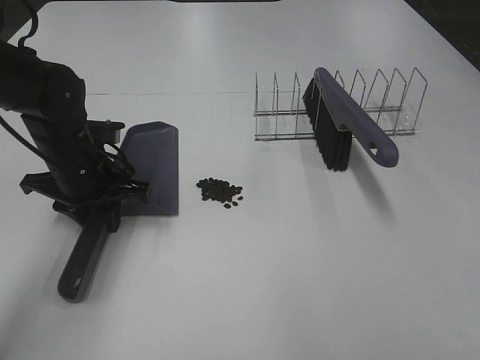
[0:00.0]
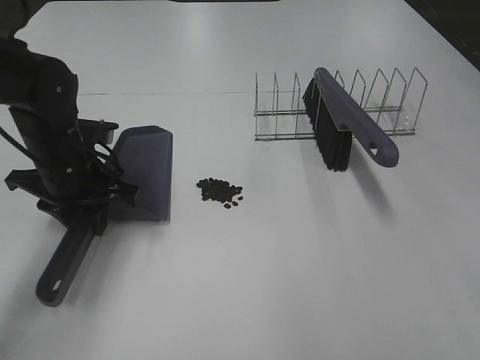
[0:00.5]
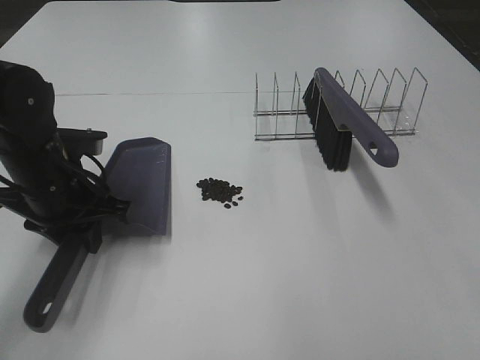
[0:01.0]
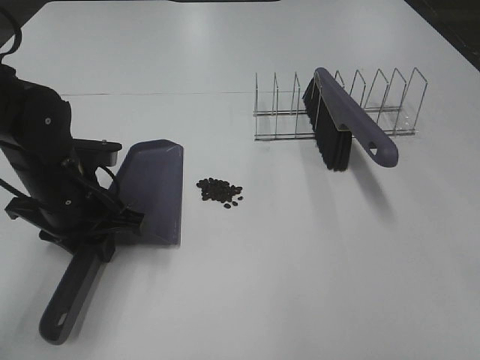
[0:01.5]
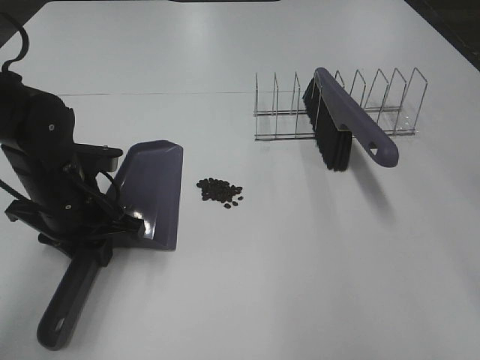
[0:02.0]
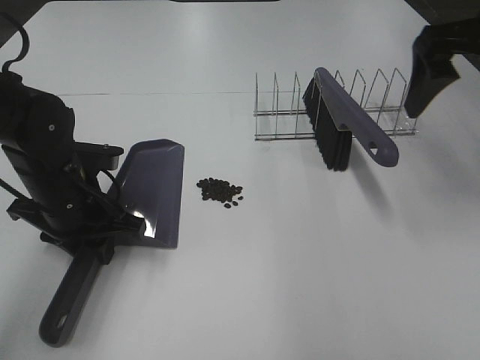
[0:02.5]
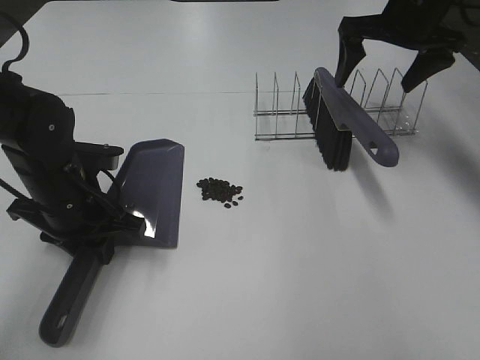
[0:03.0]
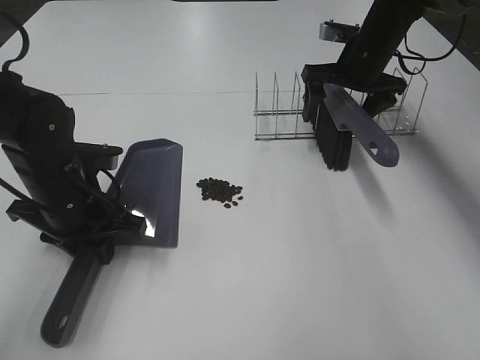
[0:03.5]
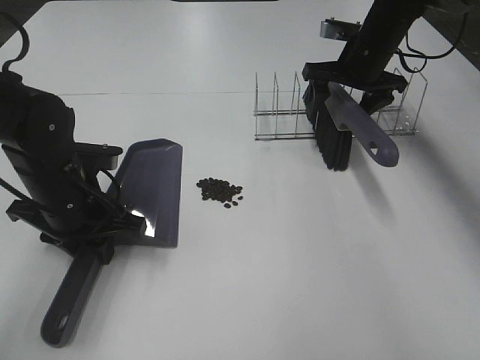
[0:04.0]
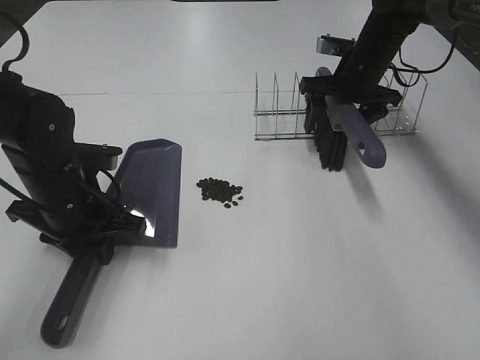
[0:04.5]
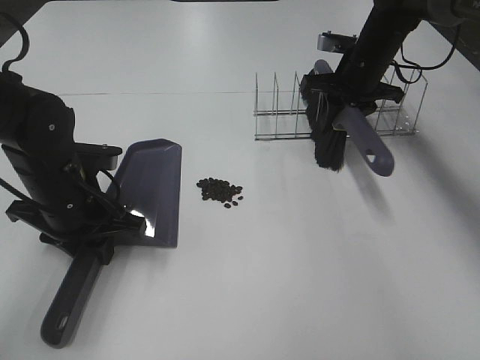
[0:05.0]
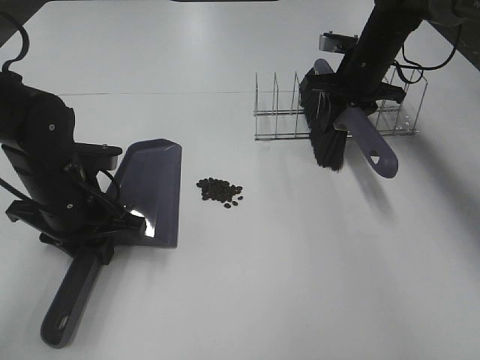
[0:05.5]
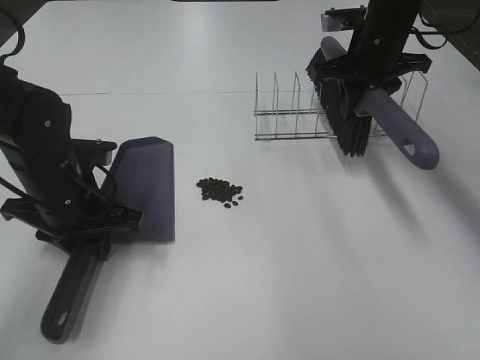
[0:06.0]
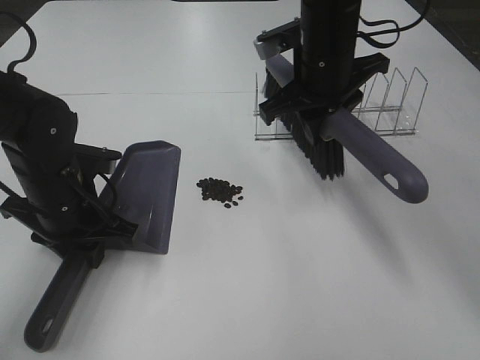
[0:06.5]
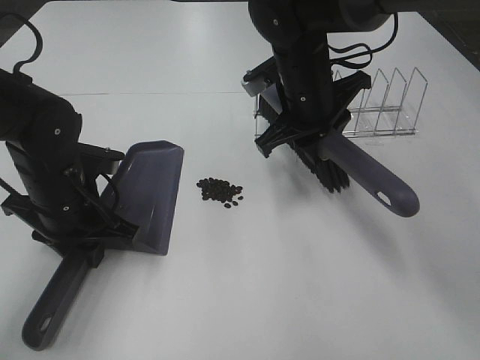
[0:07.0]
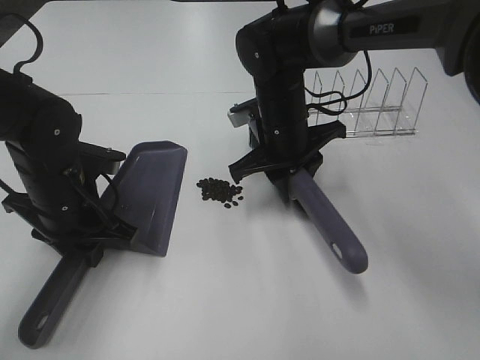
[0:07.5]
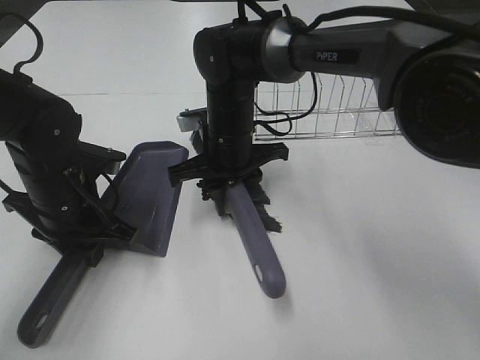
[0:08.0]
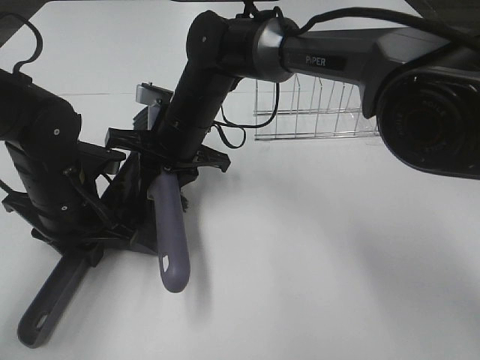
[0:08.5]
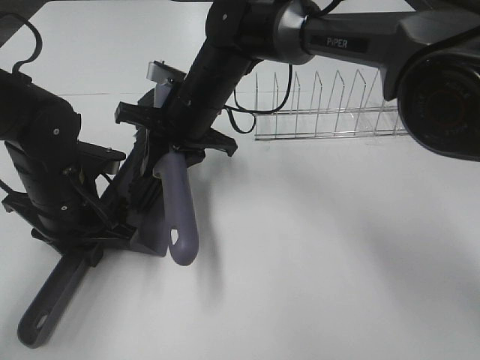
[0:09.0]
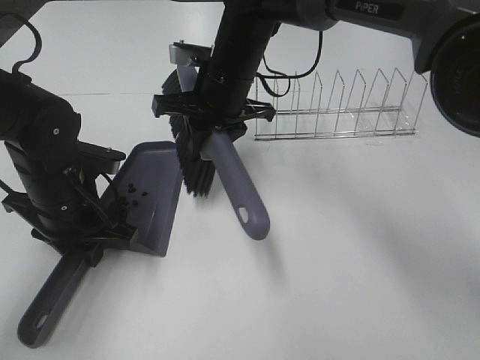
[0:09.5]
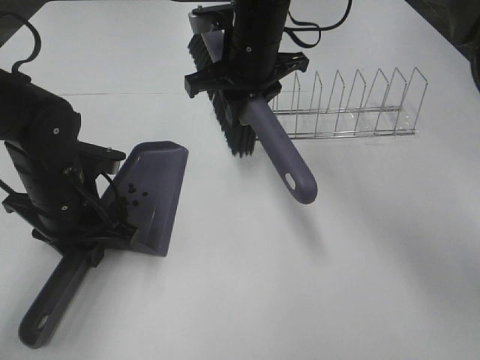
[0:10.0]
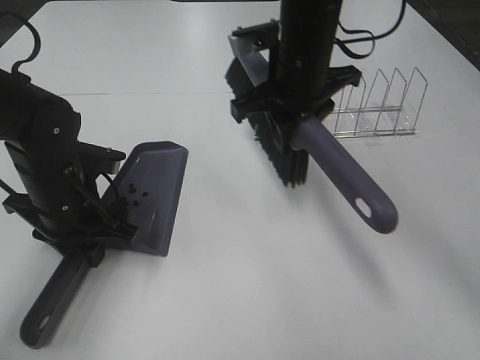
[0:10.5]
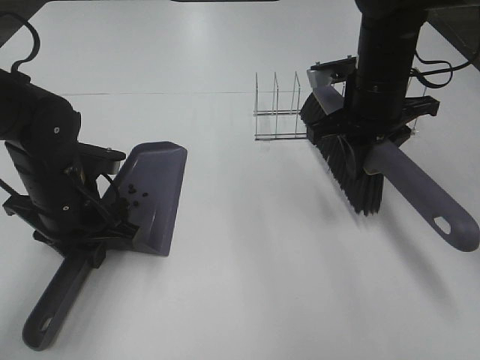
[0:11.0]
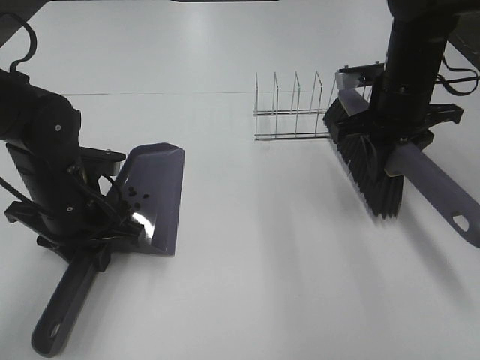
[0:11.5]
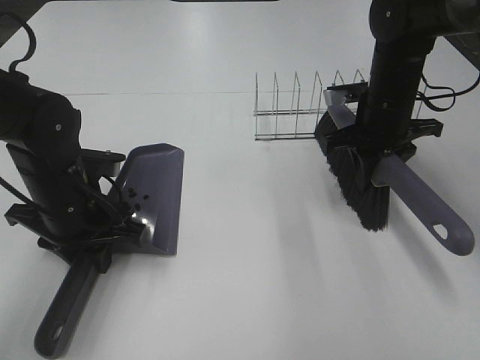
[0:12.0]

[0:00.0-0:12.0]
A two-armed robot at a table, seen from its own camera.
Task of the whole recording: Sweep Coffee Bean.
Step, 0:01.5 to 0:04.5: Right hand:grab the broom.
Step, 0:05.0 to 0:09.0: Right hand:sweep the coffee beans into the dustpan.
0:00.0 to 0:02.0: The left gripper moves backward, roughly 5 cm; the right gripper shifts approximately 15 cm forward and upward.
0:02.0 to 0:04.0: The right gripper shifts approximately 40 cm forward and downward.
0:04.0 to 0:06.0: The right gripper shifts by some 5 cm, and closes up.
0:06.0 to 0:08.0: The right gripper shifts approximately 20 cm to the left and downward.
0:08.0 to 0:10.0: The right gripper travels upward by about 10 cm.
0:10.0 to 0:12.0: The right gripper goes approximately 20 cm to the right and downward.

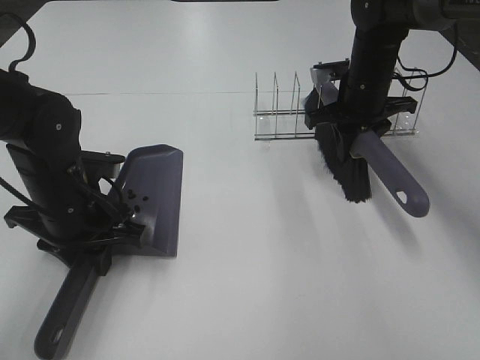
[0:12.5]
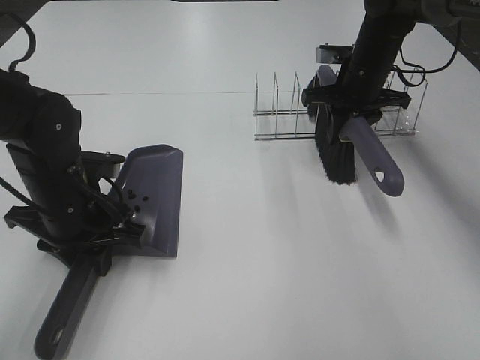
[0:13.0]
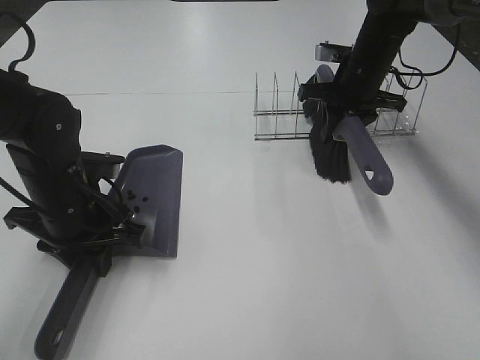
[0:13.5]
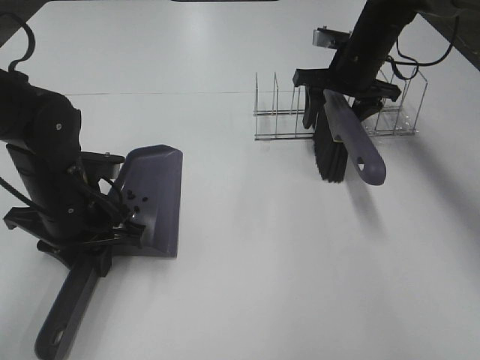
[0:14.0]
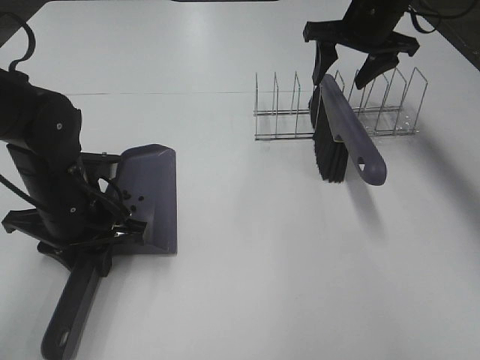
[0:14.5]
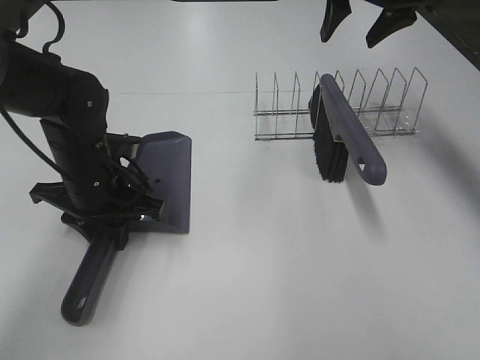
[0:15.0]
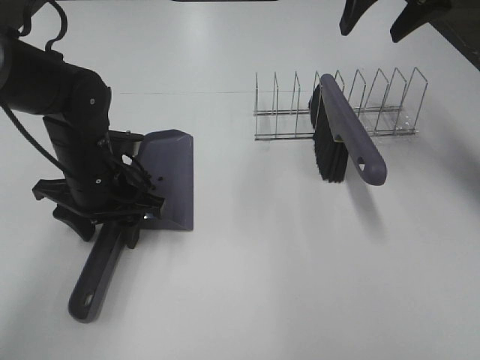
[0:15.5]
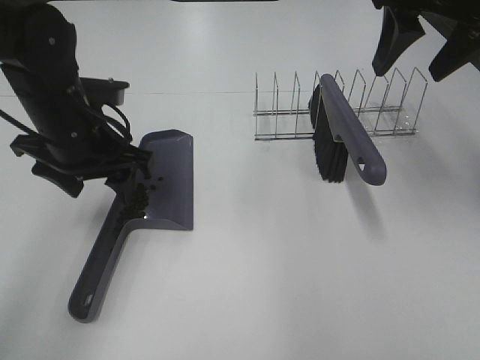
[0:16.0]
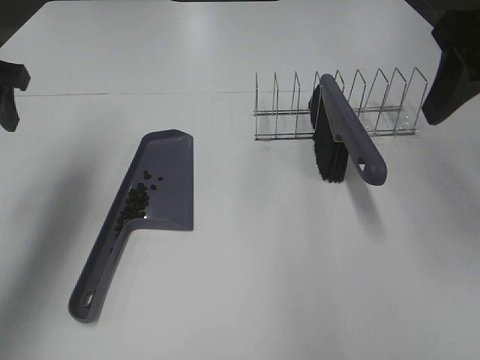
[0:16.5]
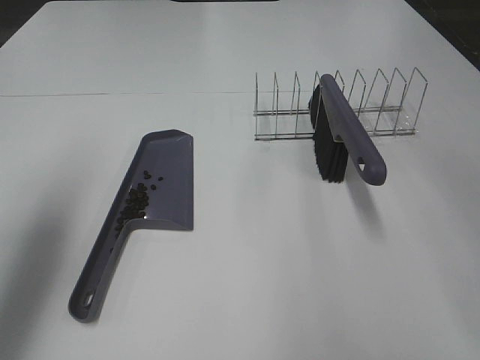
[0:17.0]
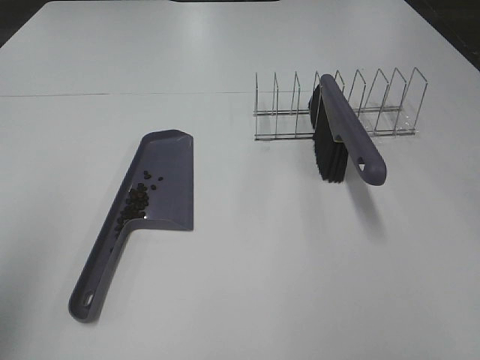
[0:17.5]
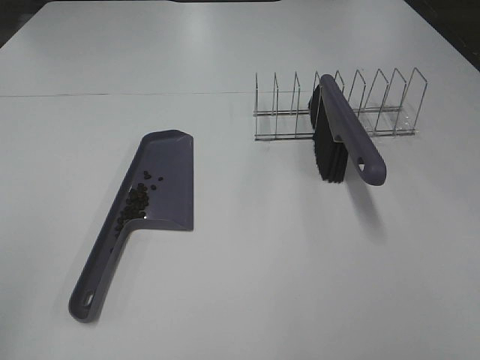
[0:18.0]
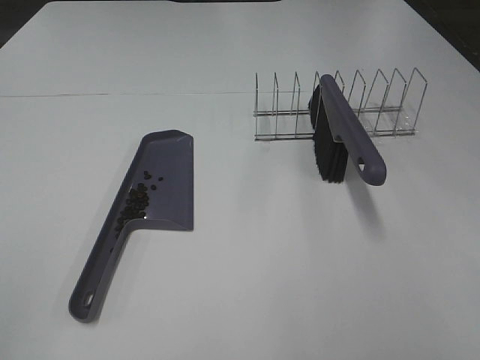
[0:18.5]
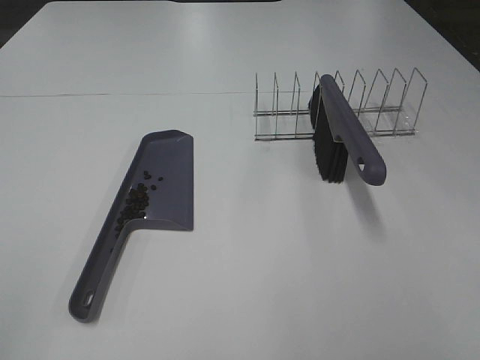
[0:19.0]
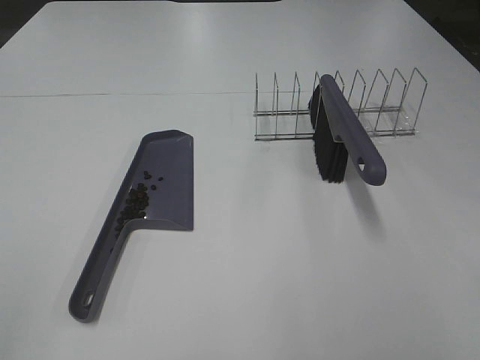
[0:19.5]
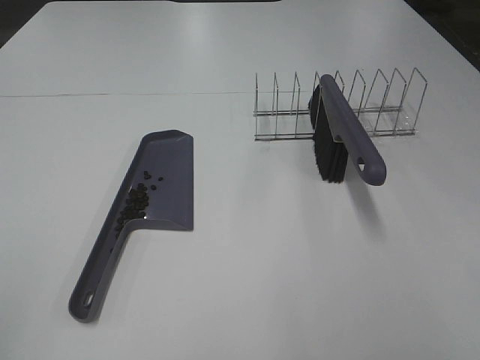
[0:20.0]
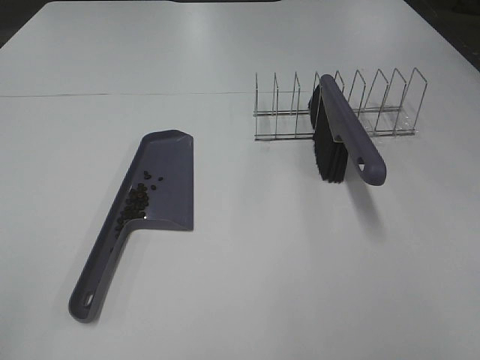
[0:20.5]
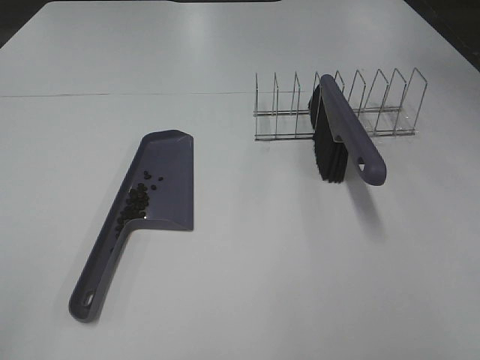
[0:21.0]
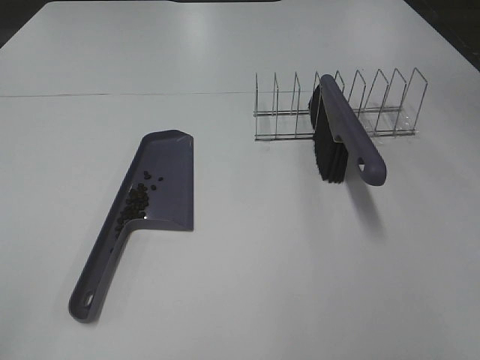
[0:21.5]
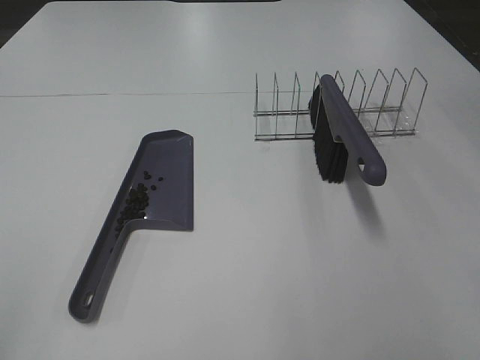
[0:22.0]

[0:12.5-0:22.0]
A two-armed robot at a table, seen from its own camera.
Task of the whole recording: Sweep Coffee Bean.
Step, 0:14.5 to 0:15.5: Left hand:place the dustpan on the table.
0:12.5 to 0:14.5: The right gripper goes roughly 10 cm upward, and opens.
0:14.5 to 0:16.5: The right gripper goes some 25 cm backward and upward. The left gripper goes approximately 20 cm upward and to the left, and opens.
0:16.5 to 0:18.0: Both grippers travel together backward, some 25 cm.
